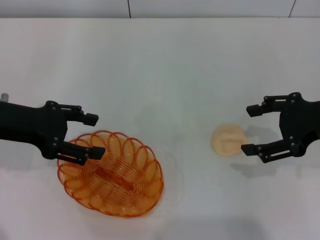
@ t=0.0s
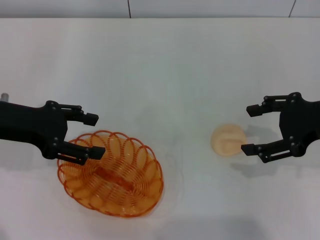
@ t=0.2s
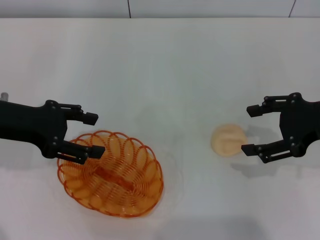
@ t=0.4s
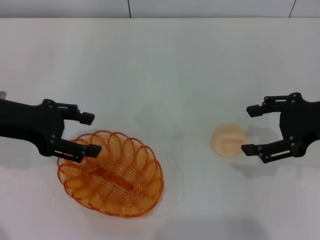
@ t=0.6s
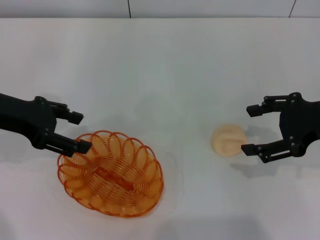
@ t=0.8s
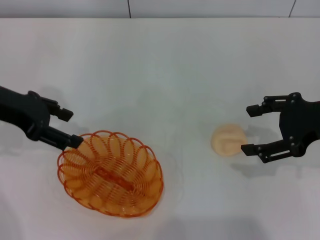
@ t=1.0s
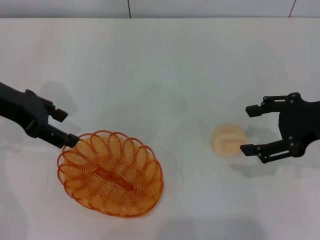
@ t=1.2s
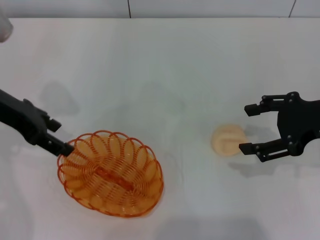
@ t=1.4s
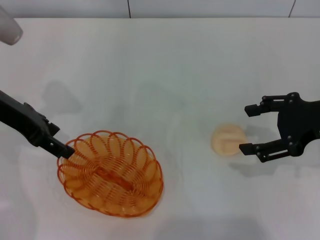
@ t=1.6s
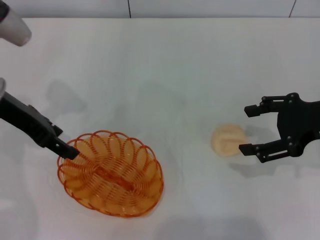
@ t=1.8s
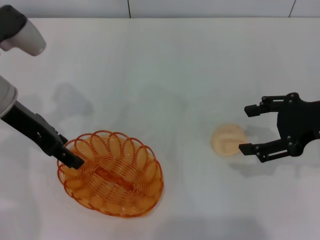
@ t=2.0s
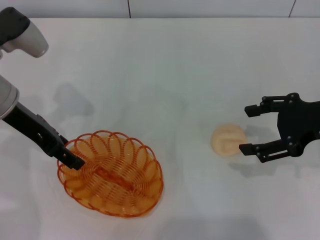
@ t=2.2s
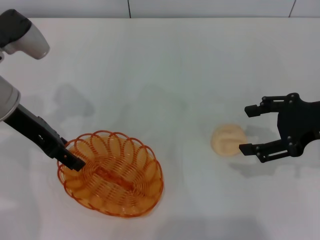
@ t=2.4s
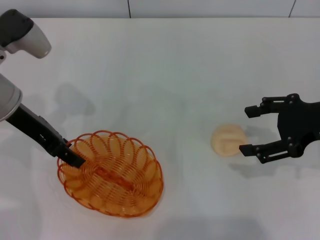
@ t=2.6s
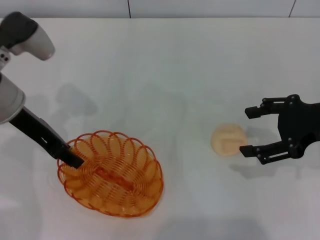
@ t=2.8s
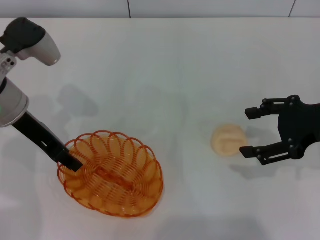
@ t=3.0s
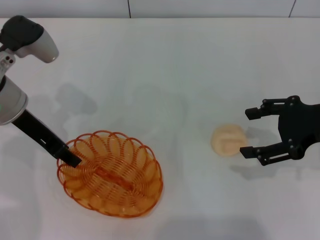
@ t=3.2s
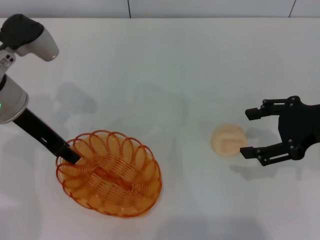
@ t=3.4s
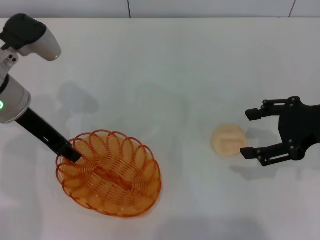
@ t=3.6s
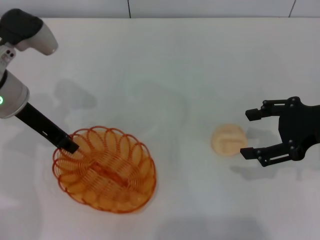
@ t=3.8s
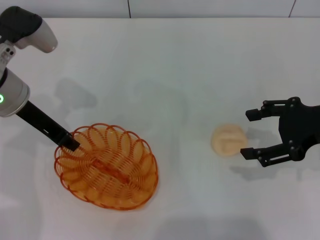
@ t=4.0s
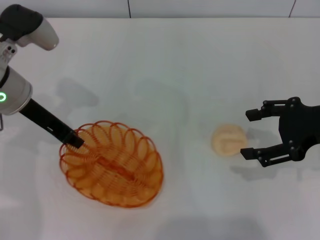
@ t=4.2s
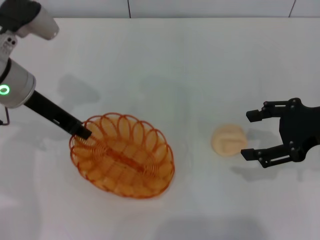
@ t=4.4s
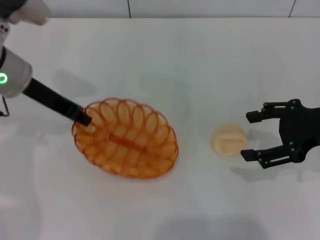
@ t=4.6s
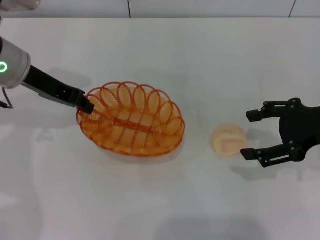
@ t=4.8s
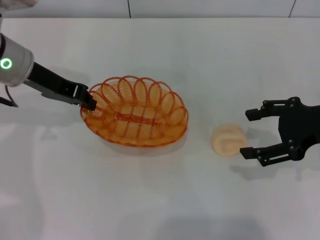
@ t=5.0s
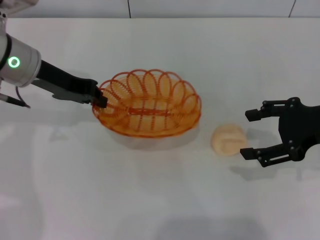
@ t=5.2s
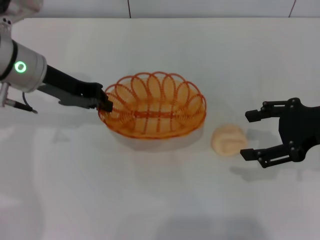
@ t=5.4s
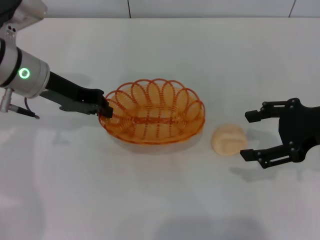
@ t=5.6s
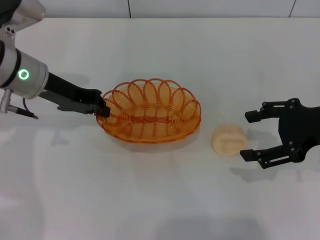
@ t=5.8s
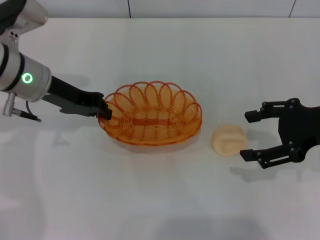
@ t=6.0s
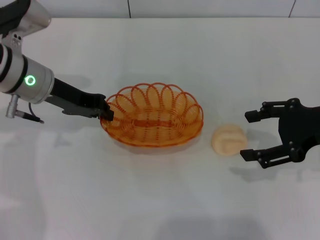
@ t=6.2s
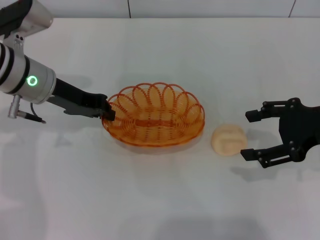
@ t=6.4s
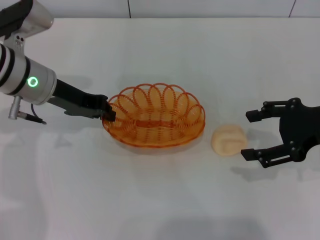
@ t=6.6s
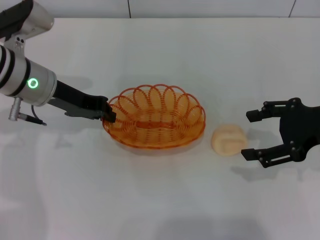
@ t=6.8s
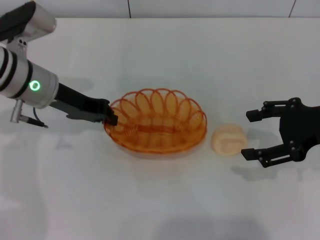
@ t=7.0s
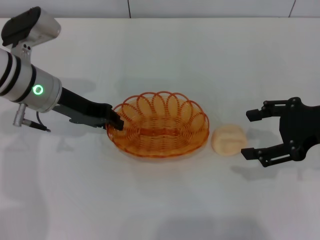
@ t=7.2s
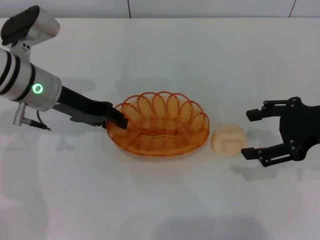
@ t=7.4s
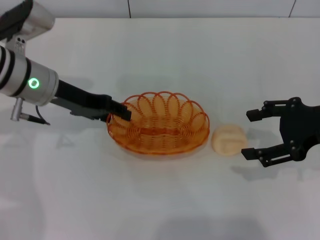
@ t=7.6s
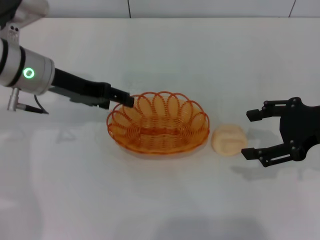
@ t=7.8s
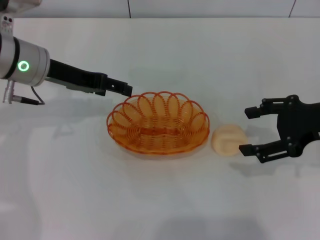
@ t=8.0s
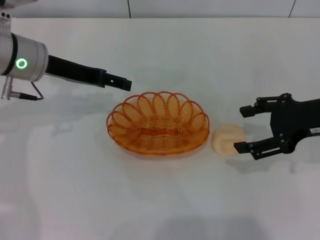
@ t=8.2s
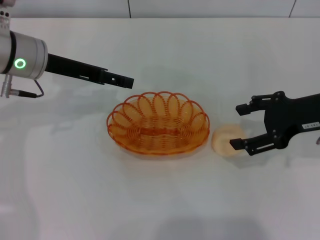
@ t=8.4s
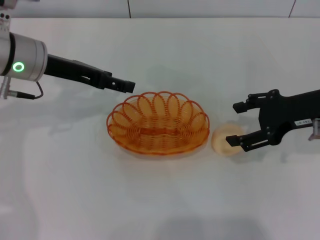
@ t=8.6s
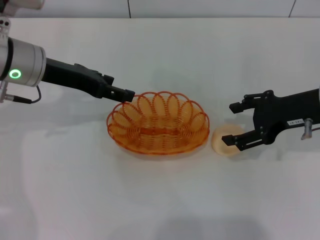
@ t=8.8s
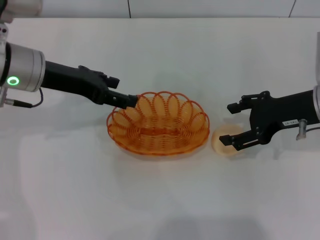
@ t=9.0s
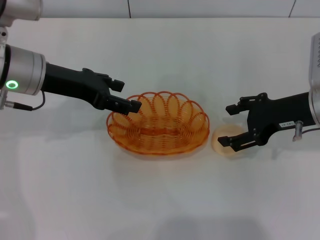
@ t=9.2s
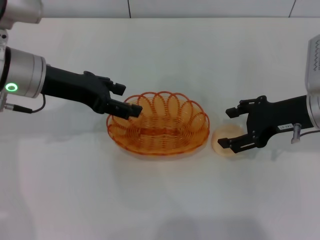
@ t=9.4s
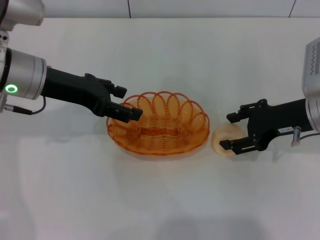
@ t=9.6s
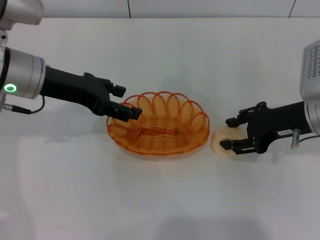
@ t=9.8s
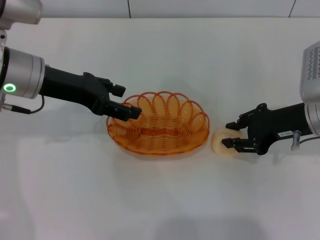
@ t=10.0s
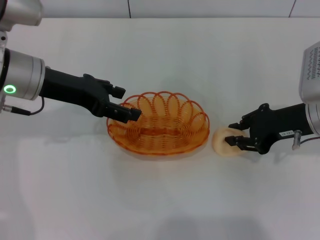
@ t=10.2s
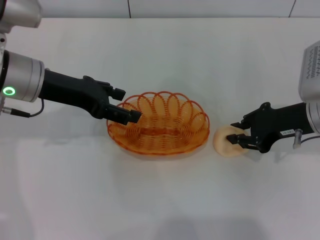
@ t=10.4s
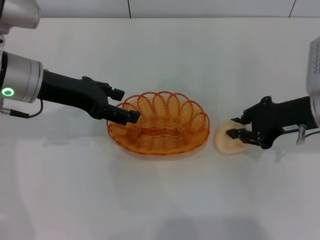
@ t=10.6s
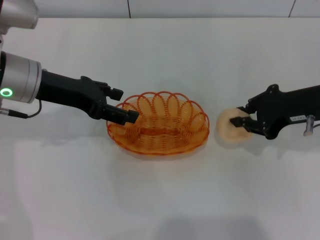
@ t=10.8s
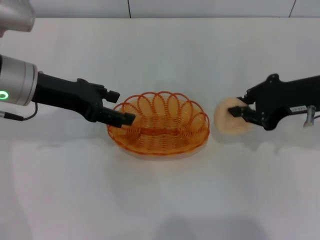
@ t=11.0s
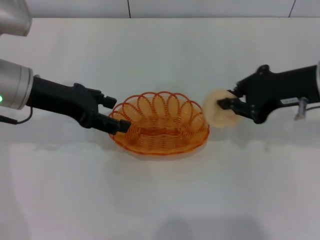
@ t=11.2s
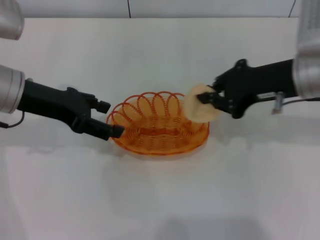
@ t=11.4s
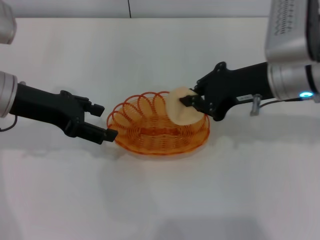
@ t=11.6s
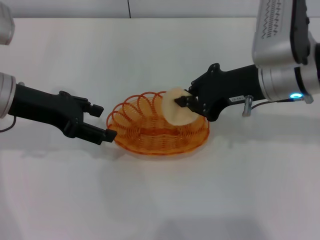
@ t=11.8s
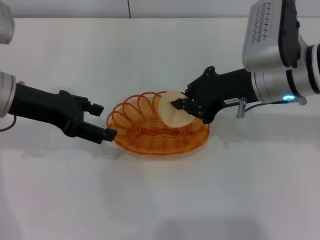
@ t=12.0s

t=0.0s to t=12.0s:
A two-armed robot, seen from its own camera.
Step, t=0.0s to t=4.6s: Pick up the basket with the left gripper.
Step, t=4.8s to t=8.0s: Place the basket in the center of view with the left gripper.
Step, t=8.2s to t=10.8s: Pick up the egg yolk pastry with the right gripper.
t=0.0s to t=1.6s: The left gripper shifts by some 5 cm.
t=1.6s to t=3.0s: The left gripper closes up.
t=3.0s to t=4.4s: The left gripper closes.
t=6.0s to t=7.6s: The left gripper opens up.
t=7.6s to t=9.0s: The right gripper ends up about 5 cm from where it was. The left gripper opens its fingers.
t=9.0s to t=10.4s: The right gripper closes.
t=10.4s to t=12.0s: The right gripper heads to the left and upward, covering roughly 10 cm.

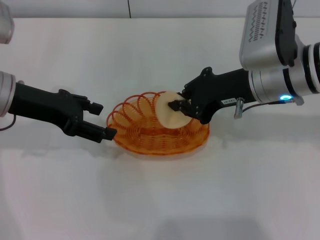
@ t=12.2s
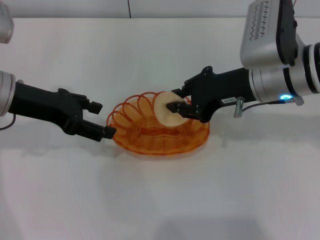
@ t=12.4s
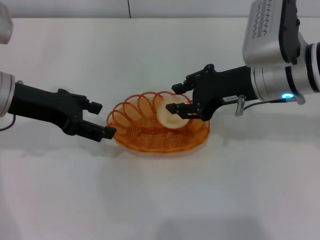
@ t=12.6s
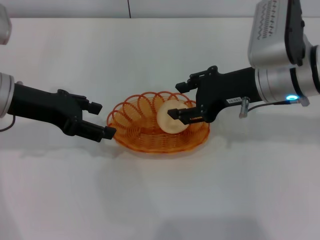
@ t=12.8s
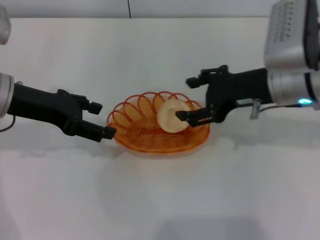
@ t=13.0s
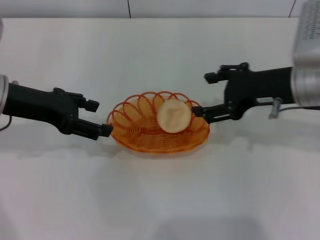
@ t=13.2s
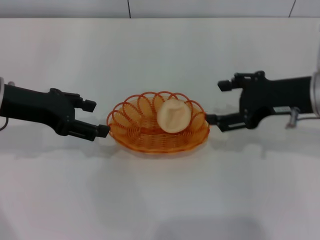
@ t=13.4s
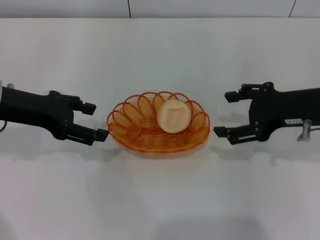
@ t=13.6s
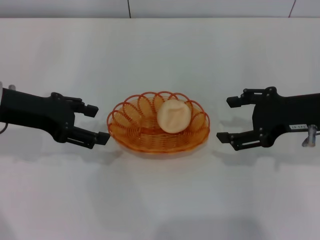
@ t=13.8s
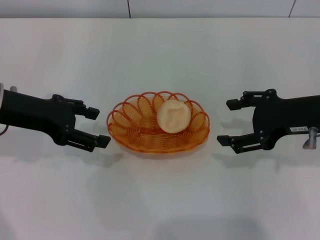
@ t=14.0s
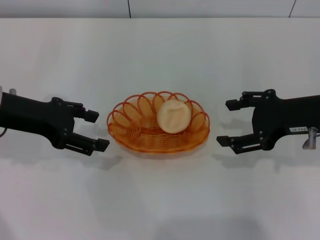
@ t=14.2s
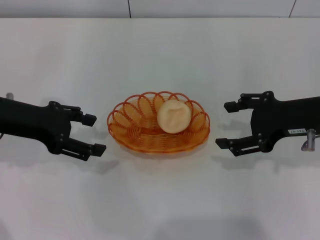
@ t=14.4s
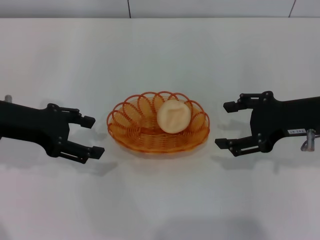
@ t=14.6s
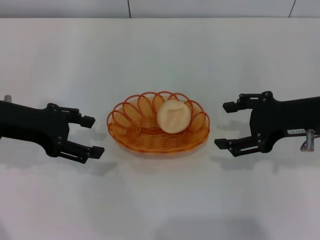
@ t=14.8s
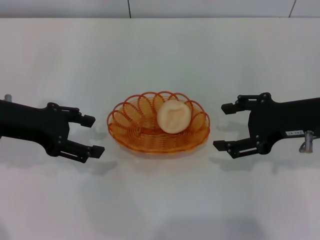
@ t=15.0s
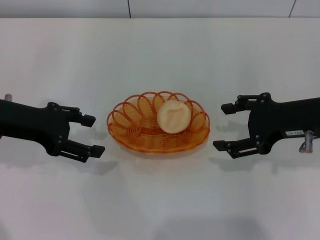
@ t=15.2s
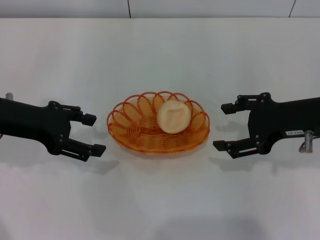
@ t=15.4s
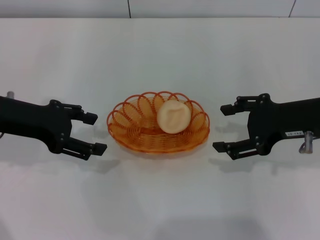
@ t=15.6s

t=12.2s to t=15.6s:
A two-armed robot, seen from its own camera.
t=12.2s to t=13.8s: The right gripper is displaced to the right by roughly 10 cm, and opens its fingers.
t=13.8s to t=15.6s: The grippers make only small movements.
